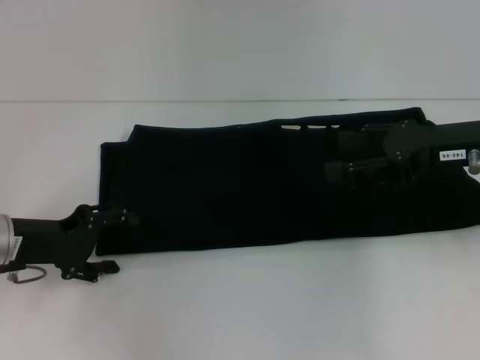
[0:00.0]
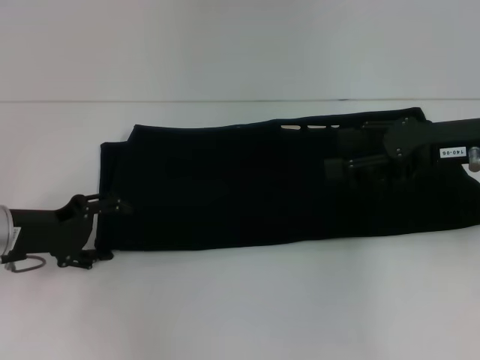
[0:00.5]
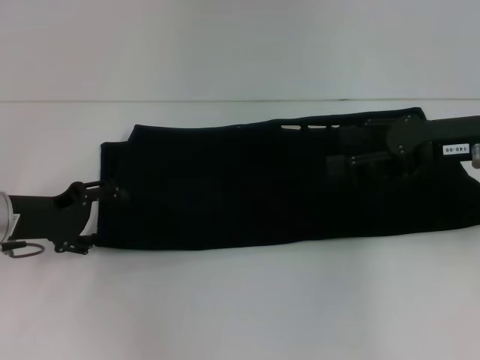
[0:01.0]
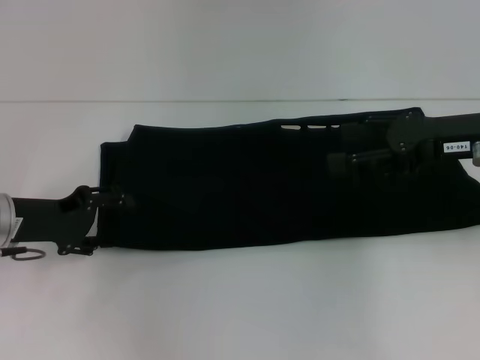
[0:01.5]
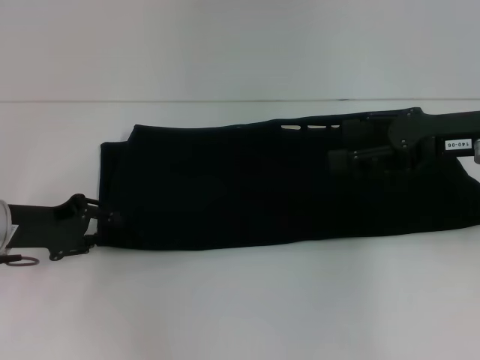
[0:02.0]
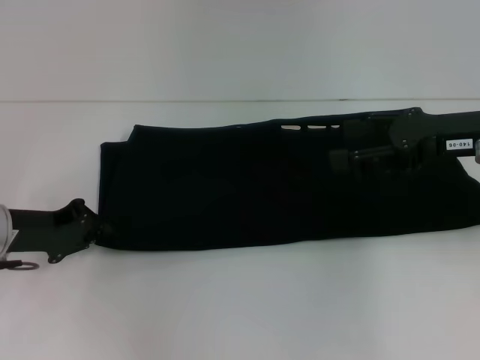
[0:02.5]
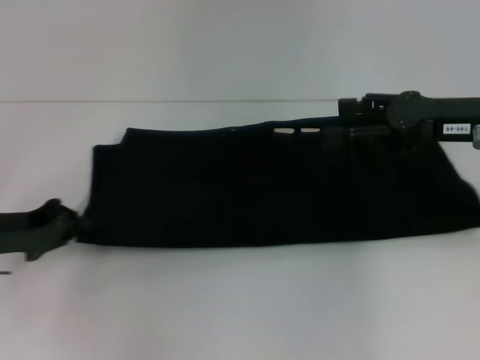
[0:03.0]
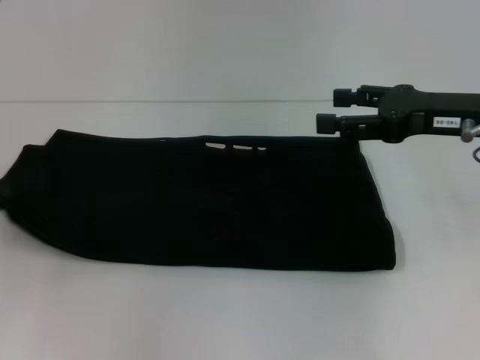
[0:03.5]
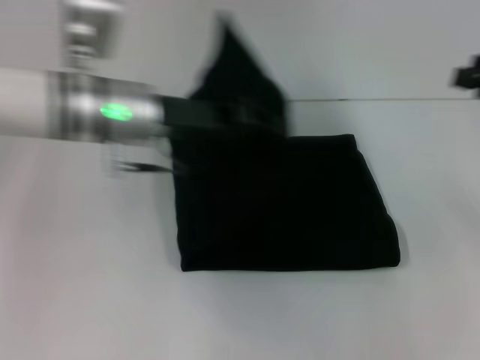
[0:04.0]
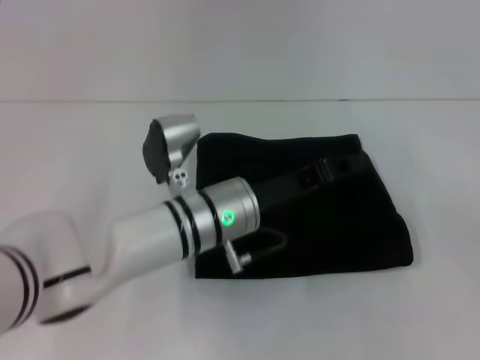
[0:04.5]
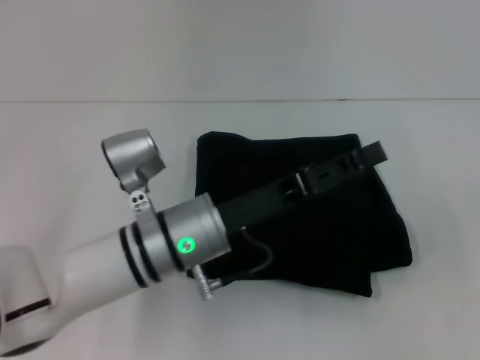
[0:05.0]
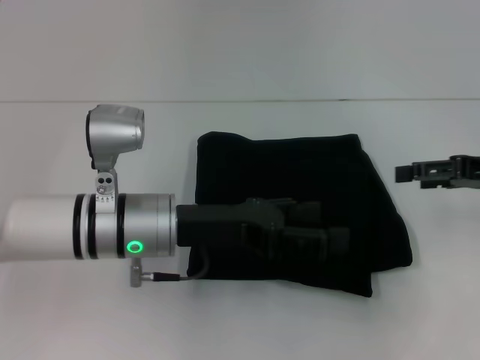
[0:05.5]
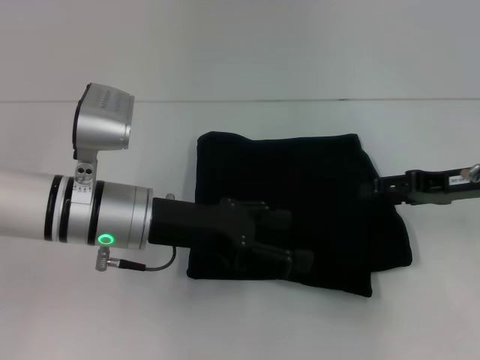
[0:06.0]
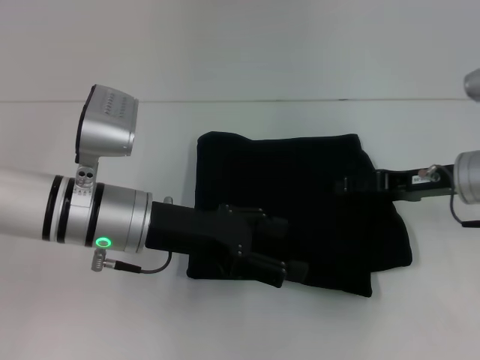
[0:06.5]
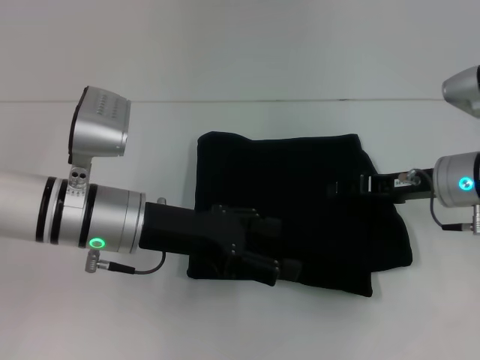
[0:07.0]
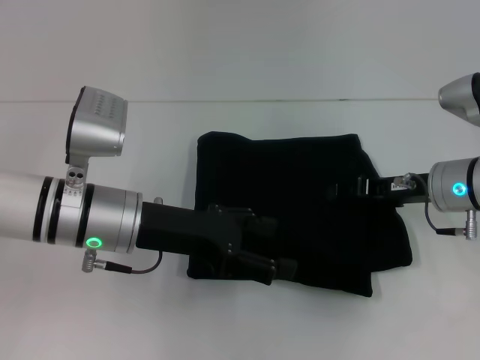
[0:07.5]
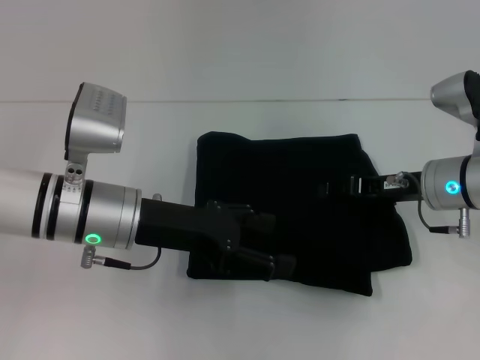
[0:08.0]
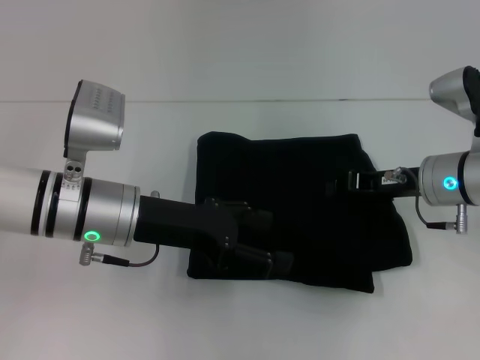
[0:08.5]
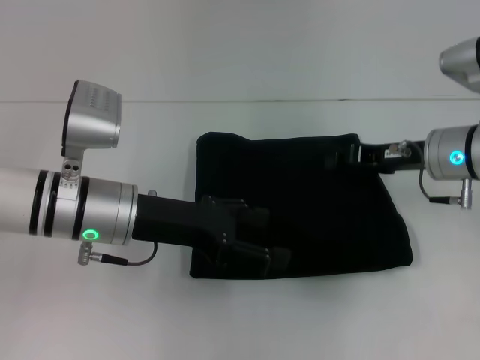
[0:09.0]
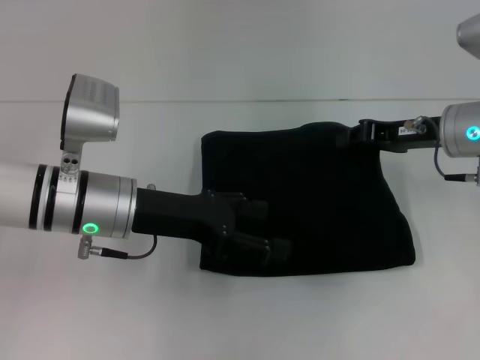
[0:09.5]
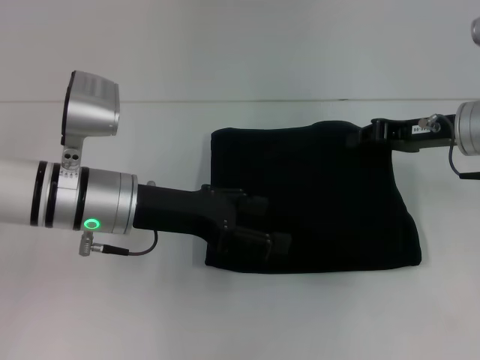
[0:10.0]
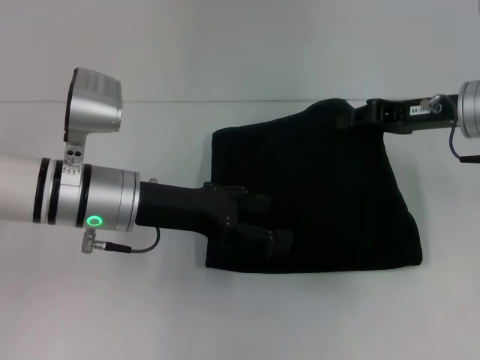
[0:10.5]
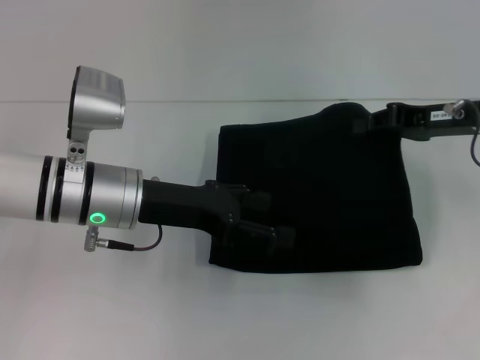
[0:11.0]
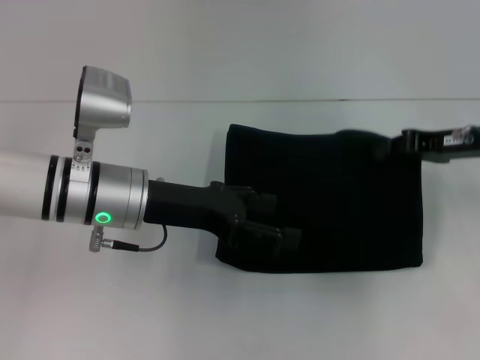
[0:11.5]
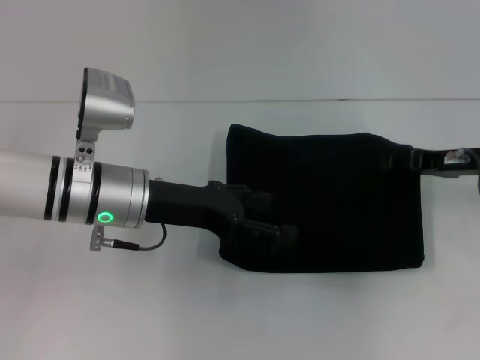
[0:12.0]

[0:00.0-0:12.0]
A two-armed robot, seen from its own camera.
Step, 0:00.0 to 0:04.5: Fold the clothes with your left hand.
0:00.0 to 0:02.0: The grippers stay close to where they were, moving slightly.
0:02.0 to 0:04.0: The right gripper heads to the right, covering about 10 cm; the left gripper moves to the right and upward, approximately 20 cm, and closes.
0:04.0 to 0:06.0: The left gripper moves backward and downward, approximately 10 cm, and opens its fingers, while the right gripper shifts roughly 10 cm to the left and downward.
0:06.0 to 0:08.0: The right gripper goes some 5 cm to the left, and closes its fingers.
0:08.0 to 0:10.0: The right gripper is displaced upward by about 5 cm, and closes its fingers.
0:10.0 to 0:12.0: The right gripper ends up roughly 5 cm from where it was.

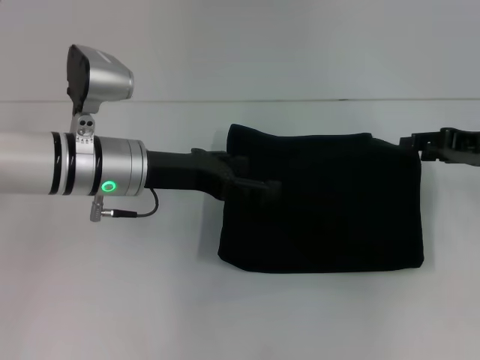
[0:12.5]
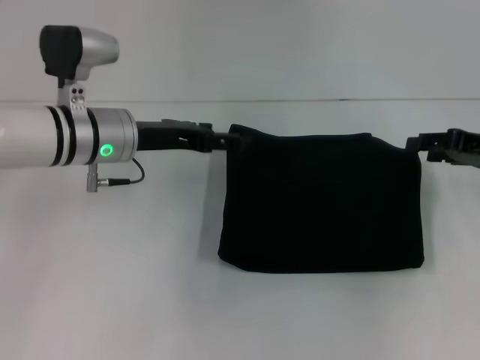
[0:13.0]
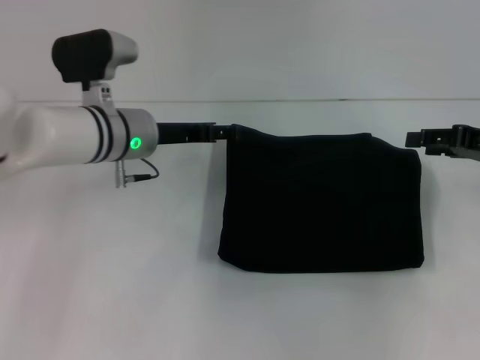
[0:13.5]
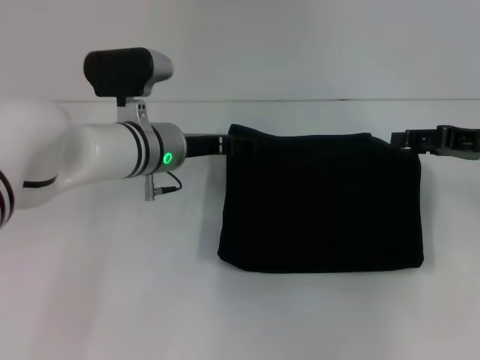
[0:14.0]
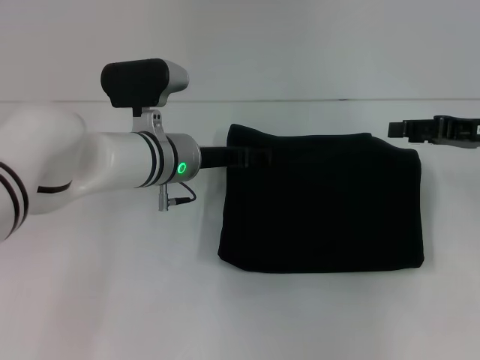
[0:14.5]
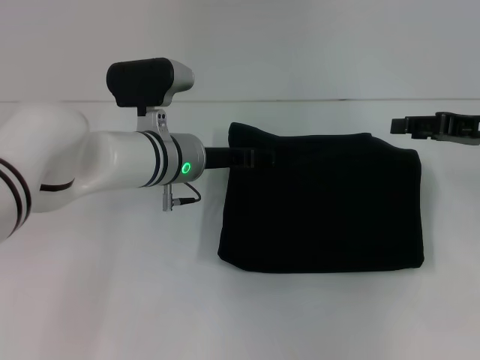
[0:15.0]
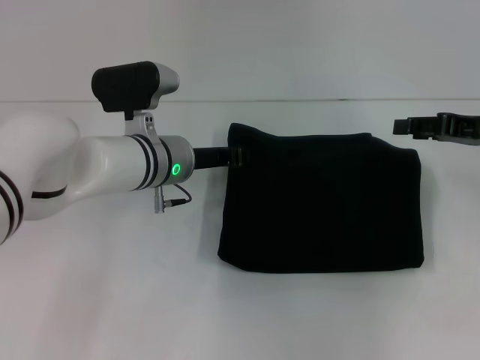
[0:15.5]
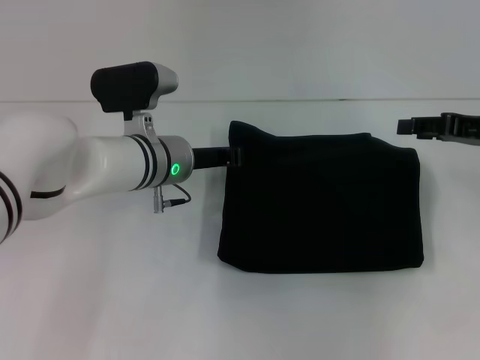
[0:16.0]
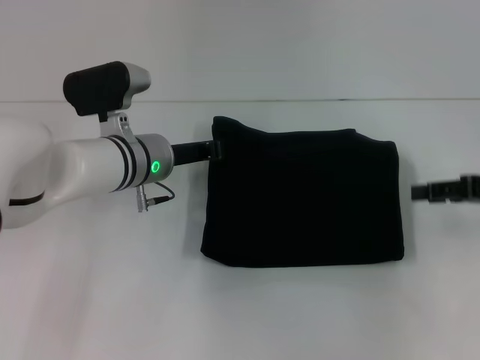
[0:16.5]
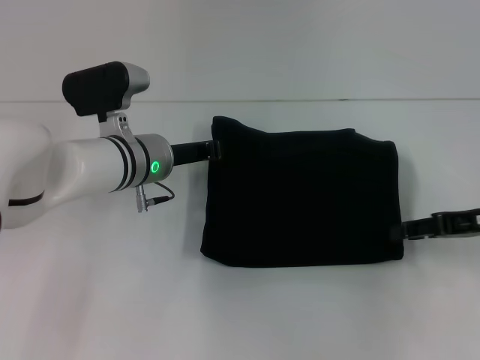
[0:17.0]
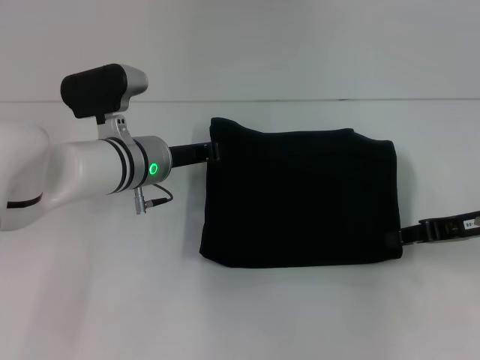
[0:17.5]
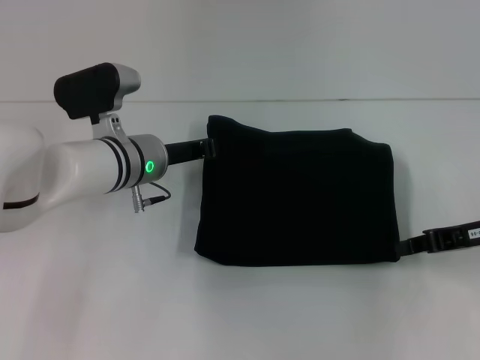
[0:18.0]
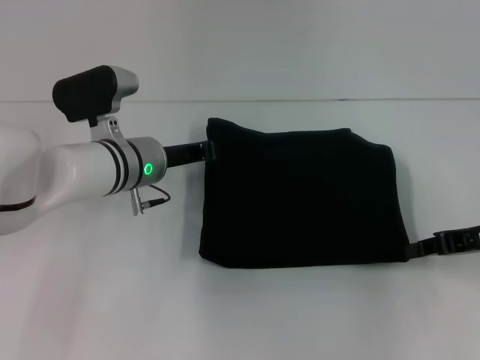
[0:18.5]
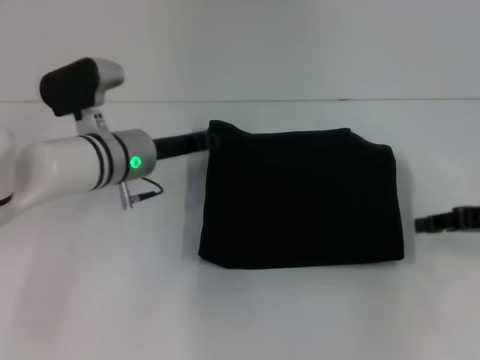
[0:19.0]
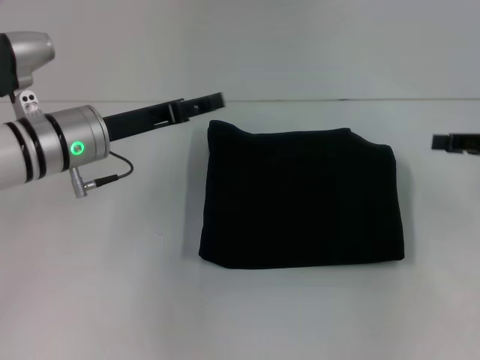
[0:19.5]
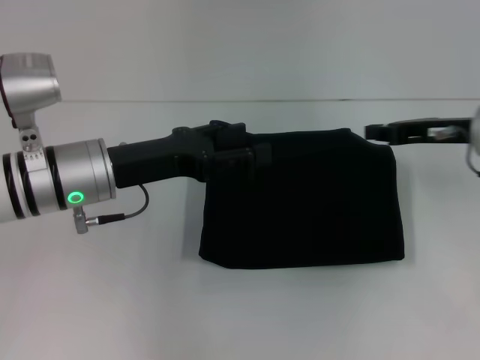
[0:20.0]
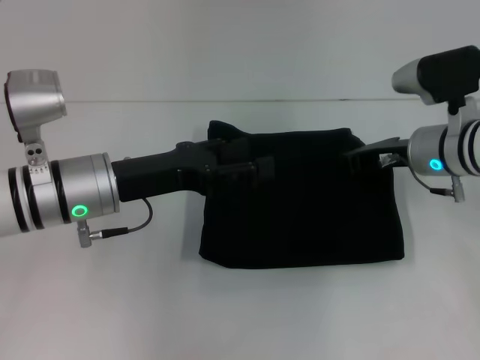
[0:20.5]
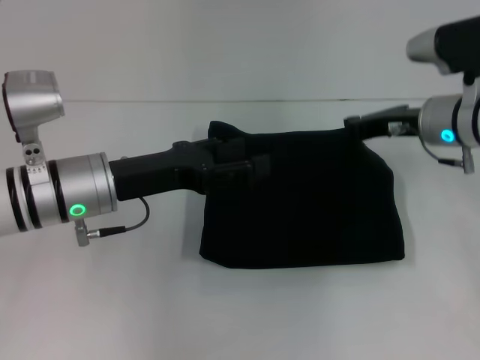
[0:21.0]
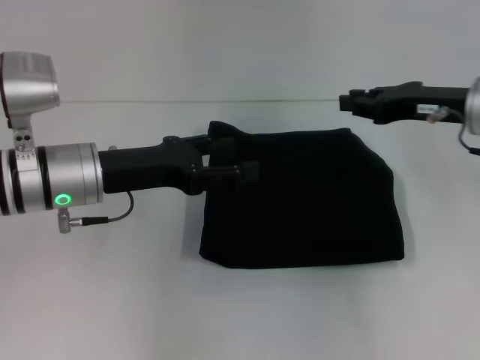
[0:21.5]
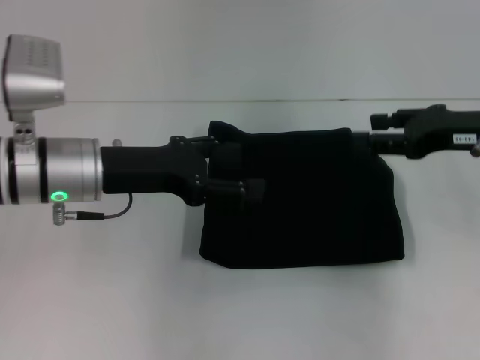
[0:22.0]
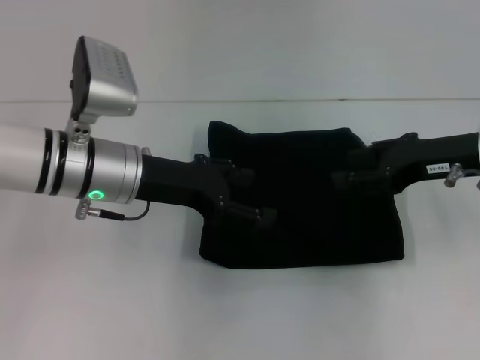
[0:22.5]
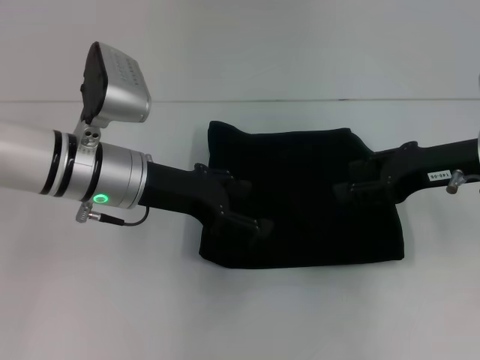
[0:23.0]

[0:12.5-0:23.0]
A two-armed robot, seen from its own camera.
0:12.5 to 0:14.5: The left gripper is displaced to the right by roughly 5 cm.
0:14.5 to 0:16.5: The left gripper closes up.
0:16.5 to 0:19.0: The right gripper closes its fingers.
0:19.0 to 0:21.0: The left gripper shifts about 5 cm backward, and opens. Meanwhile the right gripper heads to the left and forward, covering approximately 15 cm, and opens and closes again.
0:21.0 to 0:23.0: The right gripper travels backward by approximately 5 cm, and opens up.
